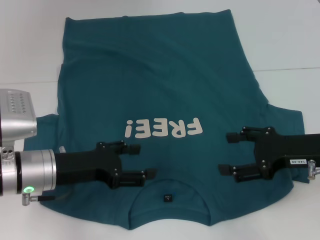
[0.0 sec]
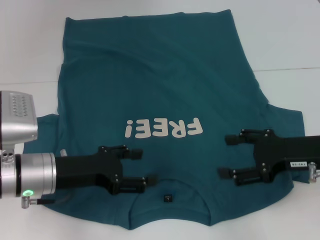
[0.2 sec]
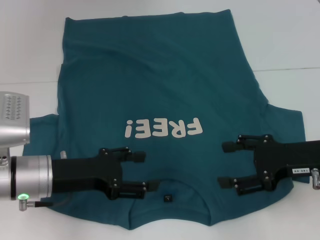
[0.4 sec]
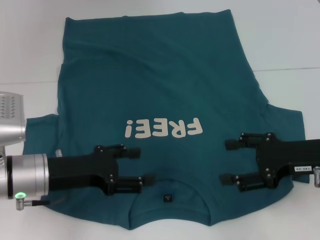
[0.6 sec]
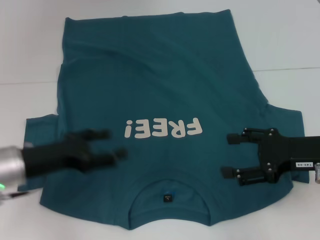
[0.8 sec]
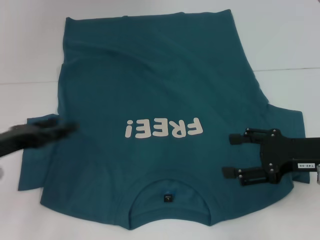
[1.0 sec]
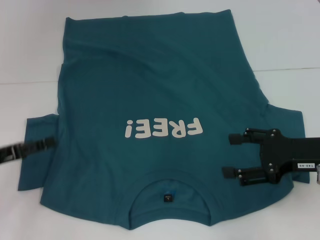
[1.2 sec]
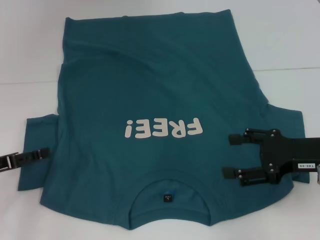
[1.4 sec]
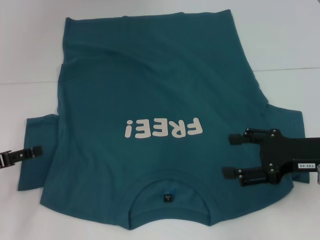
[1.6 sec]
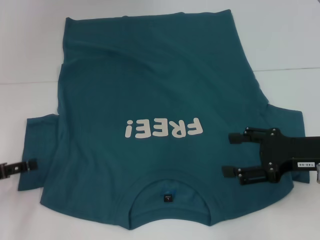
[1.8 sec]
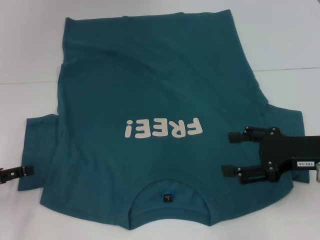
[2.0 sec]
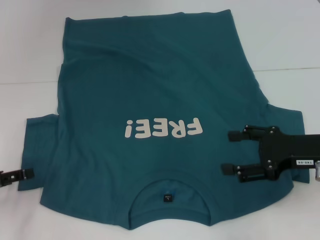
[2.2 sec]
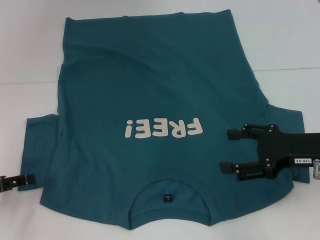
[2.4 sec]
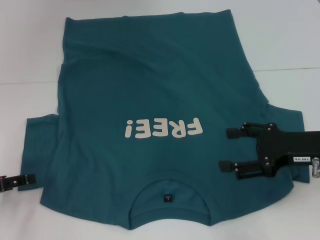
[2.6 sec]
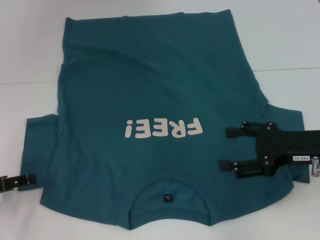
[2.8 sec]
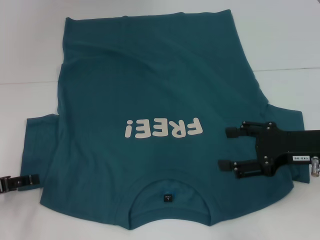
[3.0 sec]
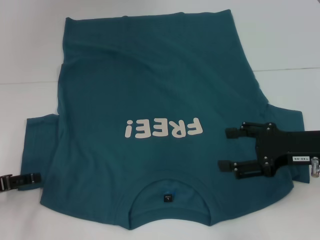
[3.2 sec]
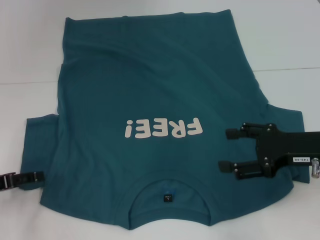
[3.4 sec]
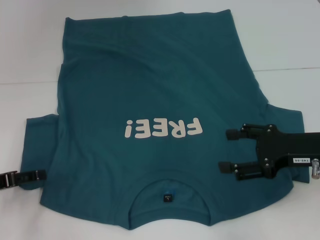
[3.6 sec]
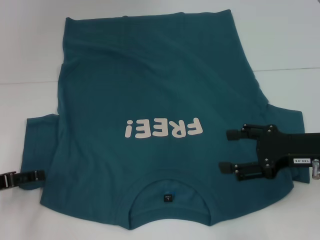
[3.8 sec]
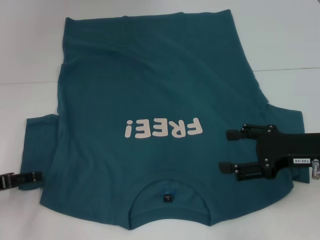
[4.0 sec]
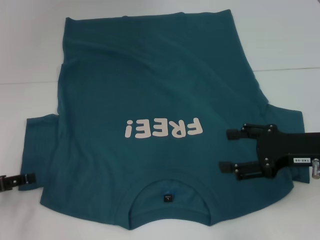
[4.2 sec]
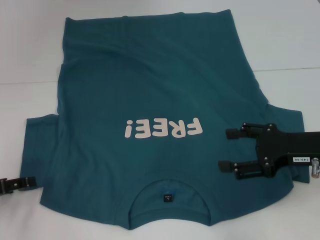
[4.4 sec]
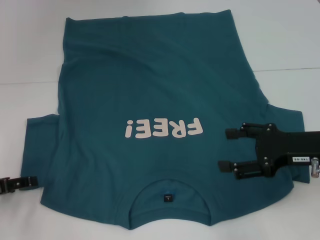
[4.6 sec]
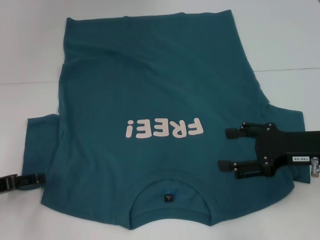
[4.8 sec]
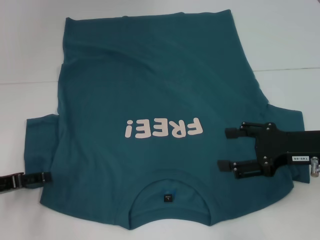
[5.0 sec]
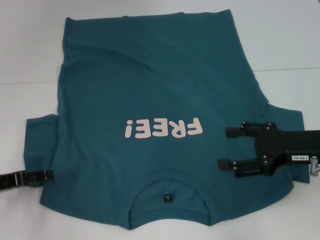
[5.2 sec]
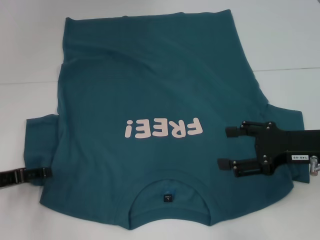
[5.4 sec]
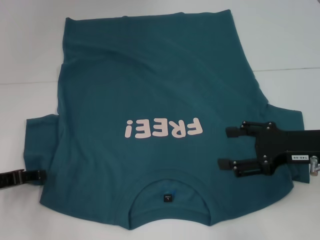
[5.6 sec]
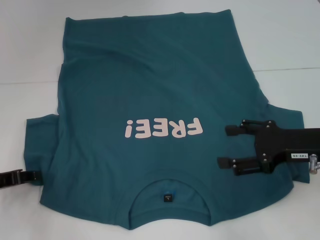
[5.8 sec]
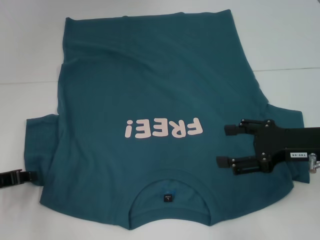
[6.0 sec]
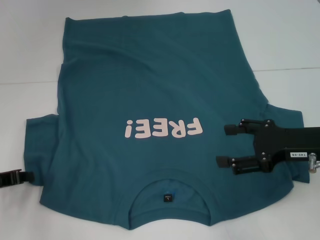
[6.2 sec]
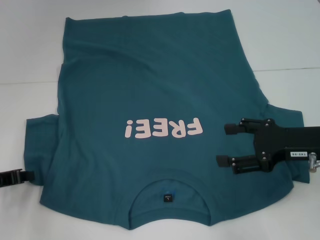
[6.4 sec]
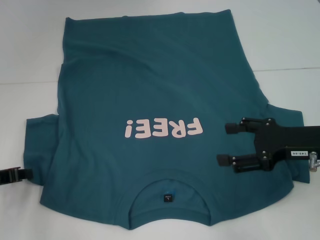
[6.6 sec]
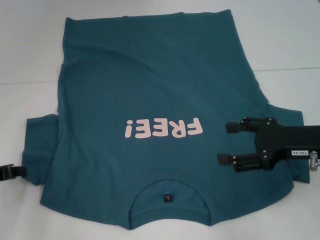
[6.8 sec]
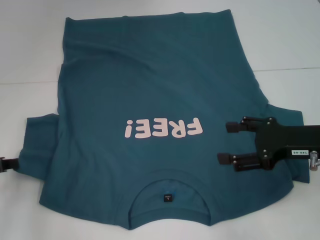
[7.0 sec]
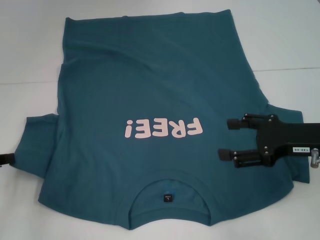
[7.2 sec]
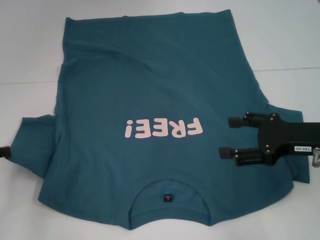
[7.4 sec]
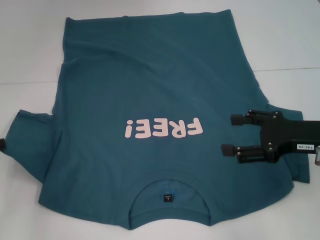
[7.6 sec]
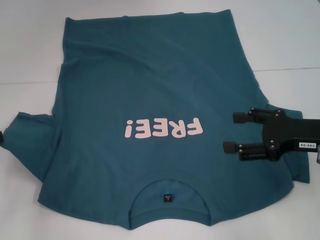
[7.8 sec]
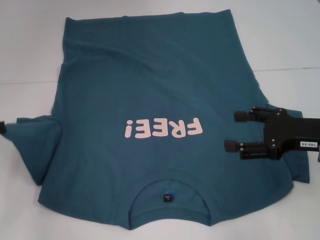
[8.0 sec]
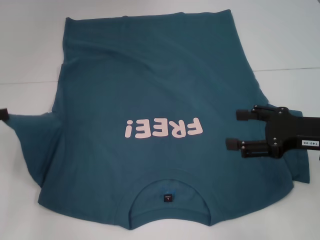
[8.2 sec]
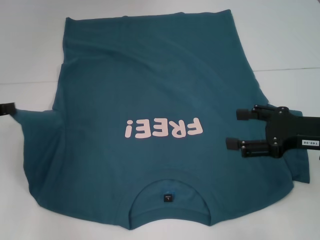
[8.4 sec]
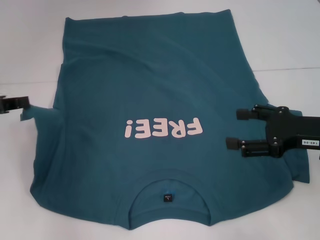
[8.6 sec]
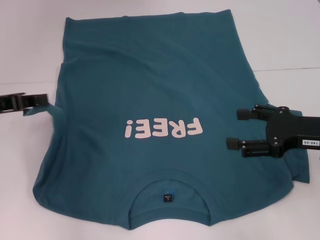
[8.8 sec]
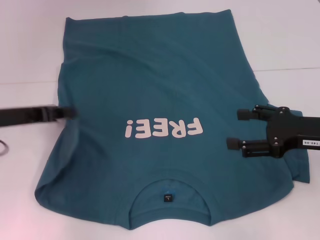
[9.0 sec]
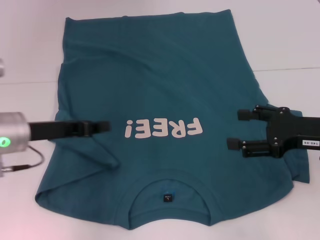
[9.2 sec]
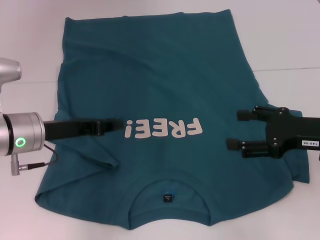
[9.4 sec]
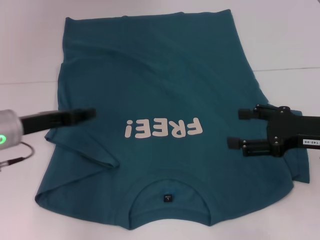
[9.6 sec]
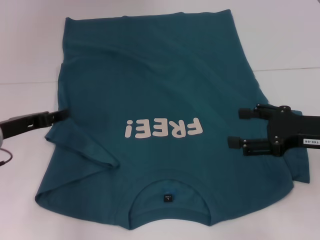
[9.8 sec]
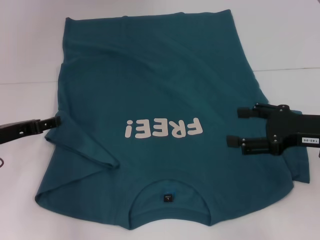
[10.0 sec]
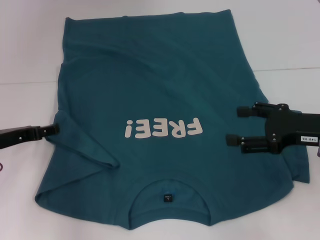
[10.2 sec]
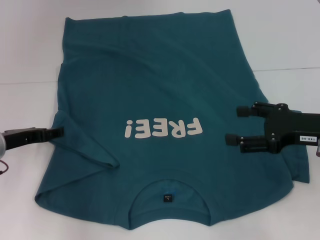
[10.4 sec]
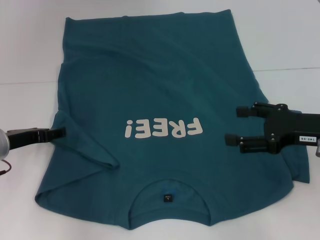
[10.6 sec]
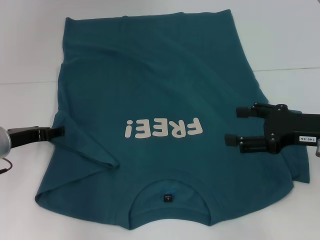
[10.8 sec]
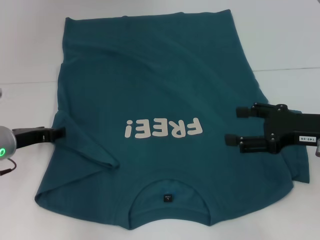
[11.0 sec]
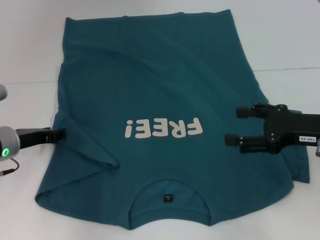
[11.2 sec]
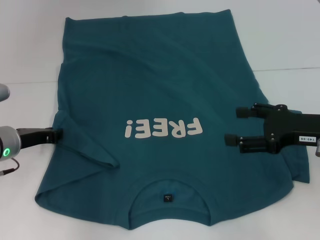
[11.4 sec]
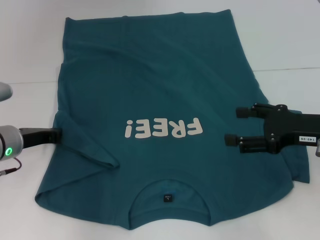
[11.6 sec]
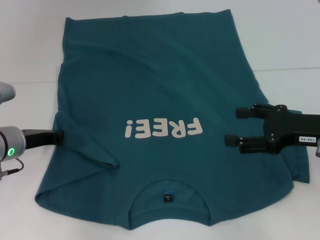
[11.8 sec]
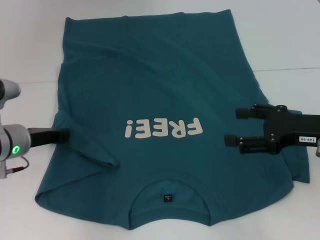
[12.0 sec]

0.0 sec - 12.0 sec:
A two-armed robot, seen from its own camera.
0.0 sec - 1.6 sec: The left gripper goes roughly 15 cm to the left.
1.6 sec - 3.0 sec: The grippers stay close to where they were, moving slightly.
3.0 sec - 4.4 sec: Both grippers stay about where they are.
4.4 sec - 6.0 sec: The left gripper closes.
6.0 sec - 7.6 sec: The left gripper heads upward, covering roughly 5 cm, and closes.
7.6 sec - 9.0 sec: The left gripper goes about 10 cm to the right.
9.0 sec - 10.4 sec: The left gripper shifts some 10 cm downward, and opens up.
10.4 sec - 12.0 sec: The left gripper closes its fingers.

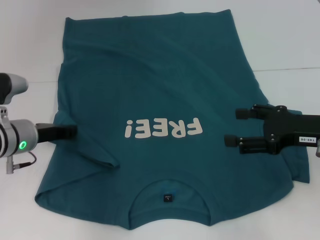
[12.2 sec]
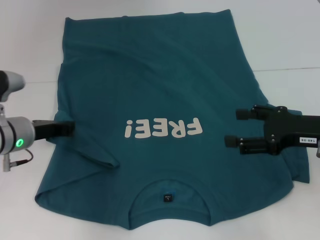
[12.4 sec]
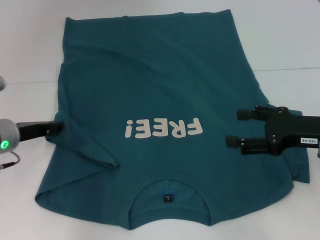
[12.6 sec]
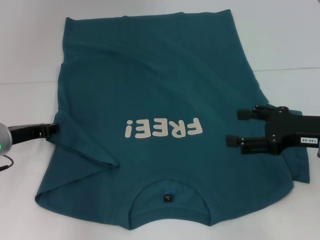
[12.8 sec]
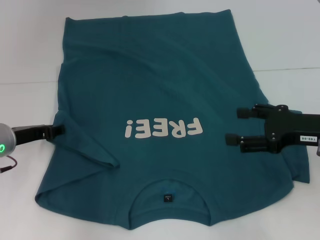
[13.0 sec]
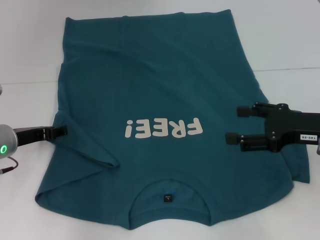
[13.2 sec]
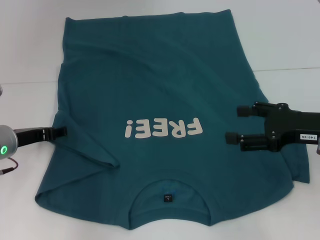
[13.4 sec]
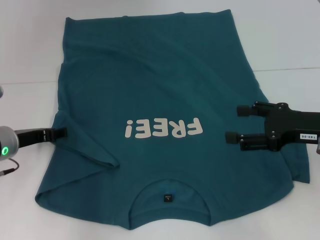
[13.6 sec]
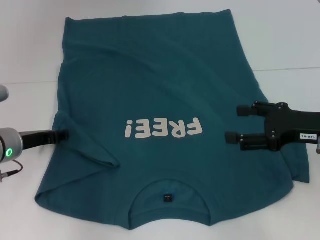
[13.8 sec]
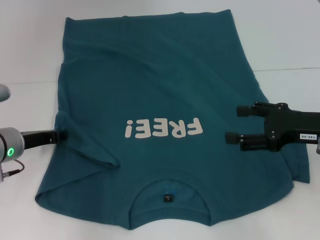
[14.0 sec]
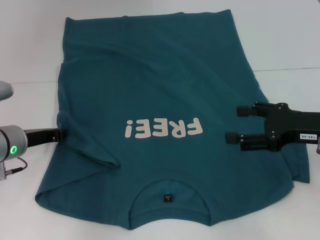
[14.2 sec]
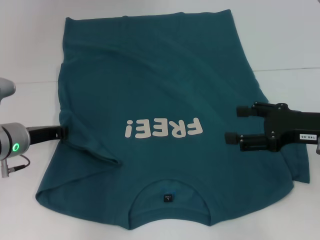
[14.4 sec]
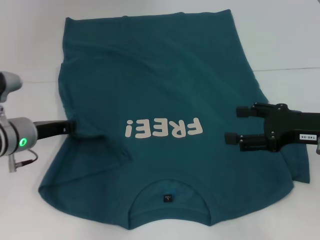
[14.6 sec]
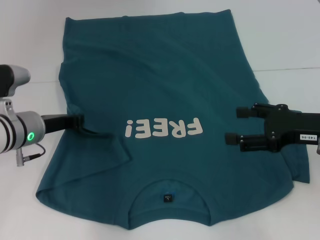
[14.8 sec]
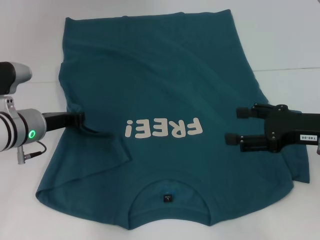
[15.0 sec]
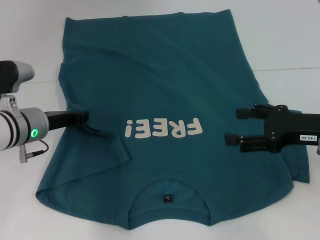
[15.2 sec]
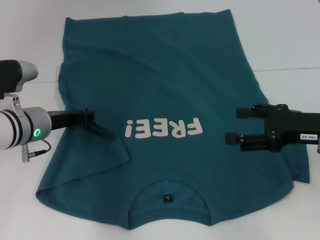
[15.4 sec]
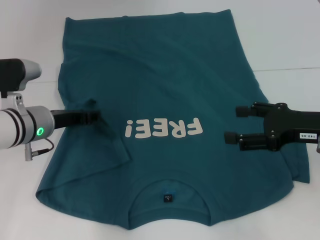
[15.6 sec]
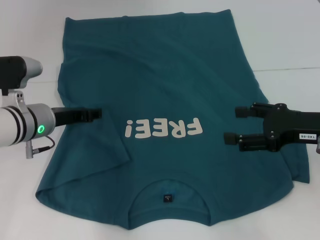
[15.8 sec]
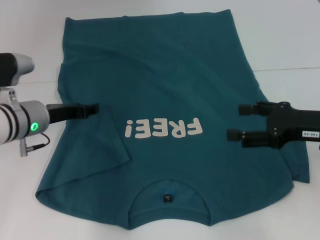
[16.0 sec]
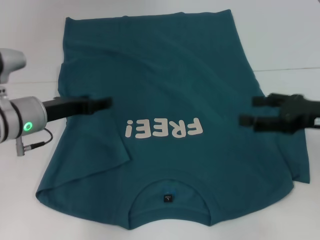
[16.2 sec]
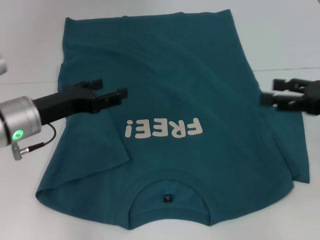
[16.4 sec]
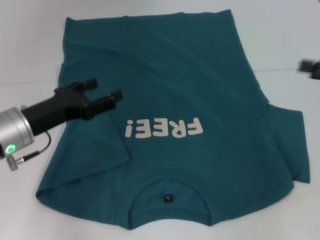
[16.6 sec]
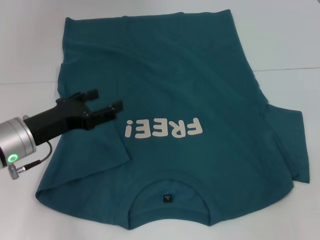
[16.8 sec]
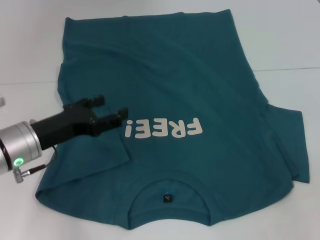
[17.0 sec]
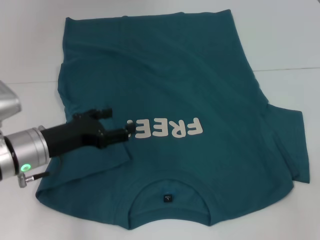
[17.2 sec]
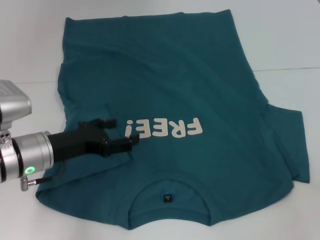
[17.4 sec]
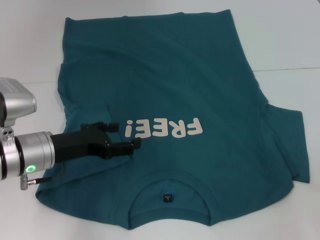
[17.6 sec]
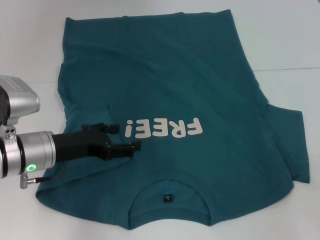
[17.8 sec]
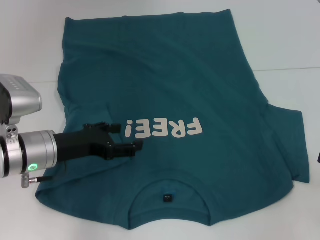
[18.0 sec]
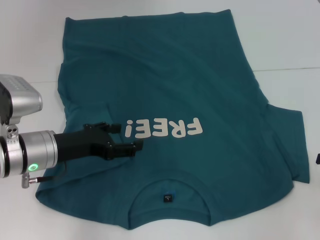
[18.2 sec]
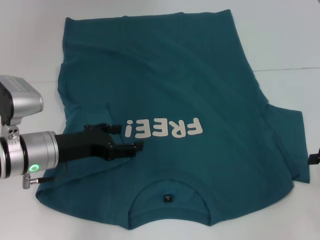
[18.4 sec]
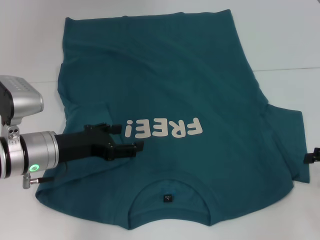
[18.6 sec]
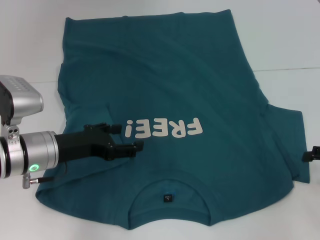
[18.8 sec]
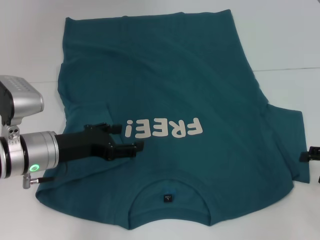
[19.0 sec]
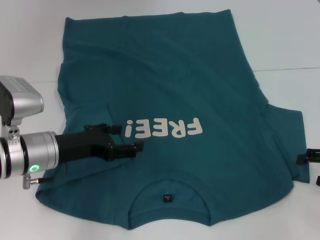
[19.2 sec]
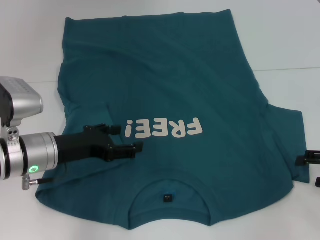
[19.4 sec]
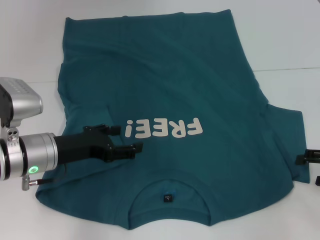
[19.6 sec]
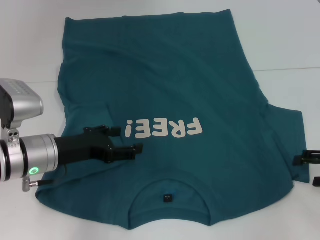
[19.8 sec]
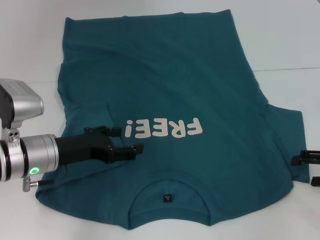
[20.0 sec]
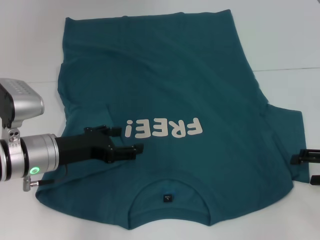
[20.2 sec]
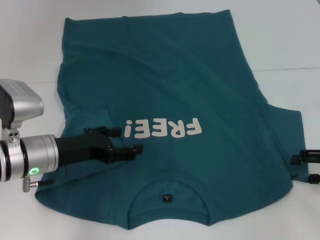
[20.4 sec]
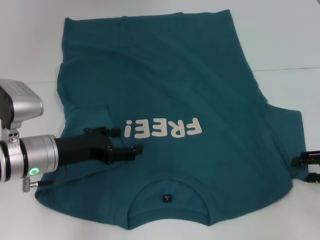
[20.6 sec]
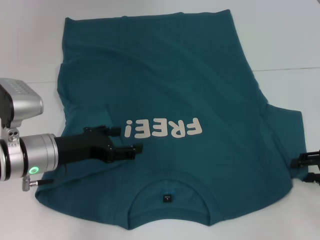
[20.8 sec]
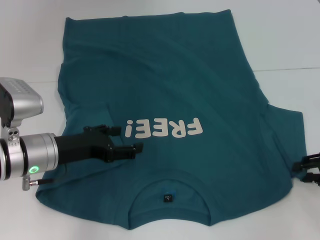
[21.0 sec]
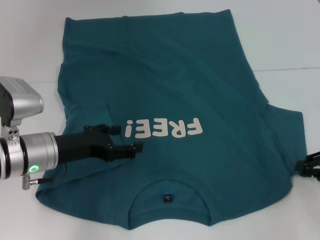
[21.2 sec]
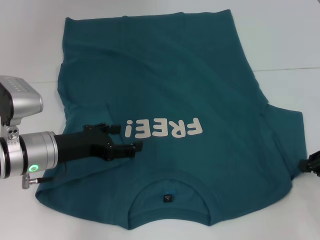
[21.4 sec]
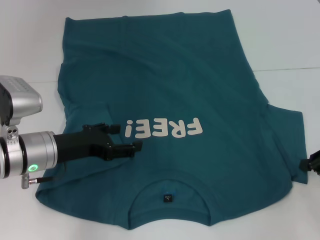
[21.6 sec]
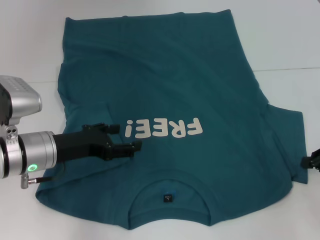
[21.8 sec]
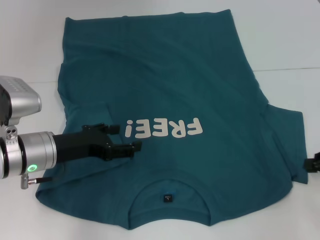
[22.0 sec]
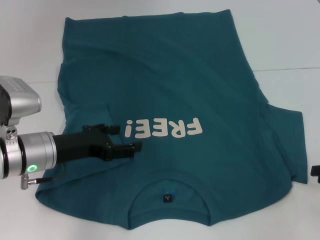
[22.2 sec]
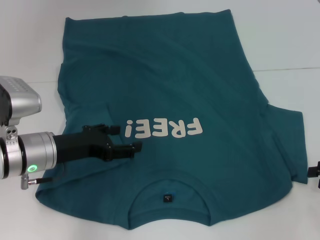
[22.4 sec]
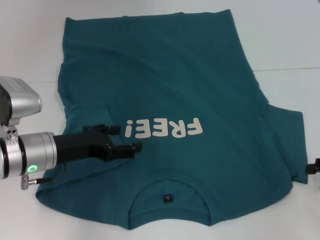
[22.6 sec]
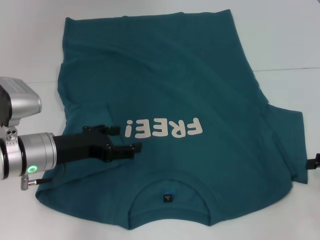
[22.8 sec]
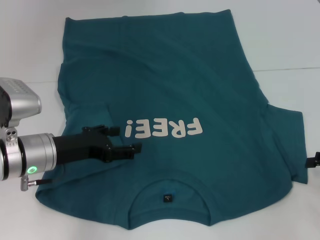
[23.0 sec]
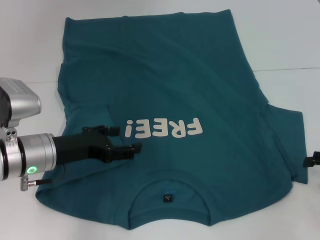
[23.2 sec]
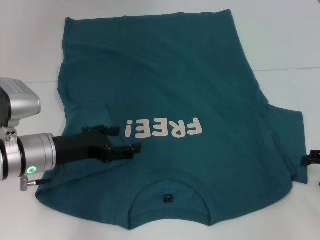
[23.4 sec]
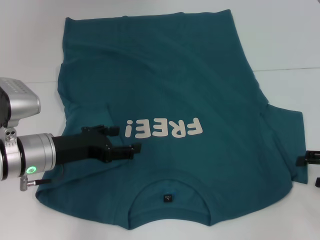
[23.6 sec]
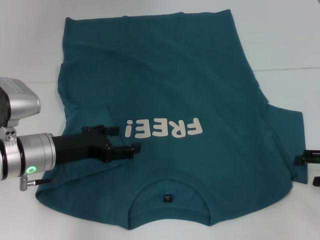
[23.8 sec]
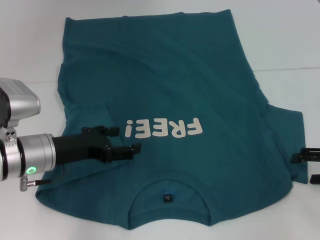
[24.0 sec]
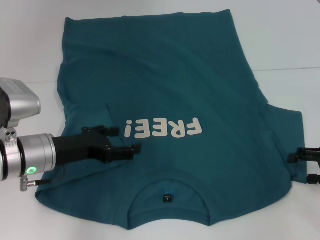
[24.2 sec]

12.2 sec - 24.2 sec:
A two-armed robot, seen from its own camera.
Step, 12.2 sec - 16.0 sec: Fold the bottom left sleeve with your left hand.
12.2 sec - 13.8 sec: The left gripper opens up.
13.8 sec - 15.2 sec: The left gripper shifts by approximately 5 cm, and closes.
15.2 sec - 16.6 sec: The right gripper shifts some 10 cm to the right and upward. The left gripper moves backward, some 5 cm, and opens up.
16.6 sec - 18.2 sec: The right gripper is displaced downward by approximately 10 cm.
18.2 sec - 19.8 sec: The grippers make only small movements.
19.8 sec - 21.2 sec: The right gripper closes.
21.2 sec - 22.6 sec: The right gripper closes, then opens again.
22.6 sec - 24.2 sec: The right gripper opens.
